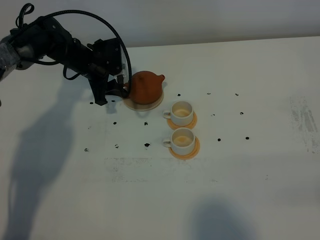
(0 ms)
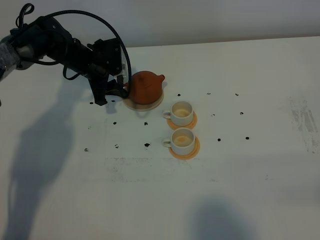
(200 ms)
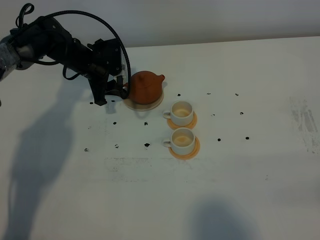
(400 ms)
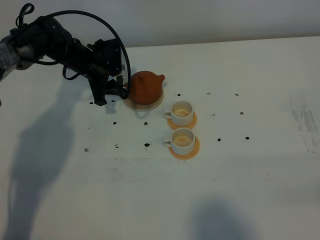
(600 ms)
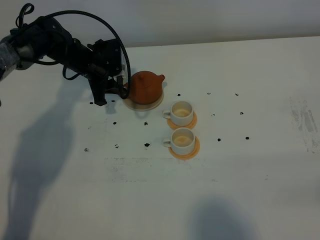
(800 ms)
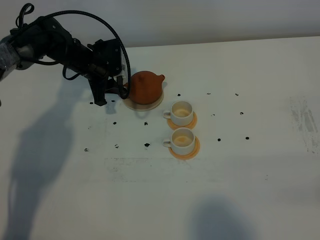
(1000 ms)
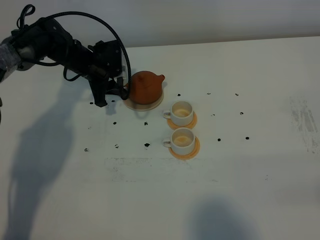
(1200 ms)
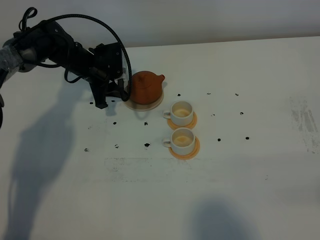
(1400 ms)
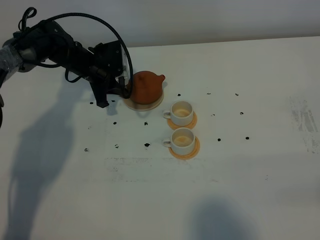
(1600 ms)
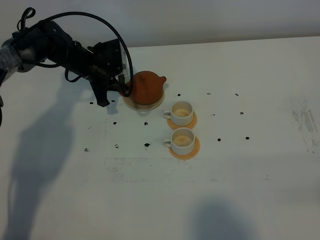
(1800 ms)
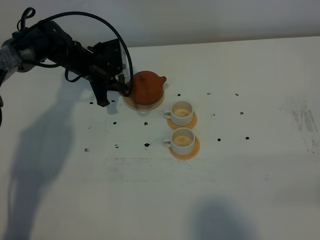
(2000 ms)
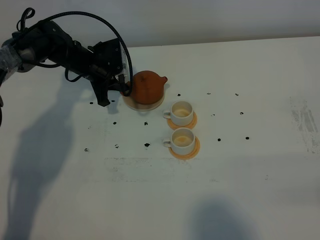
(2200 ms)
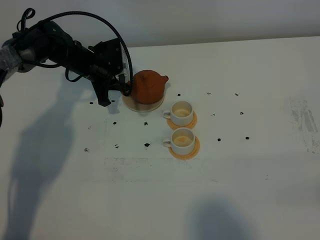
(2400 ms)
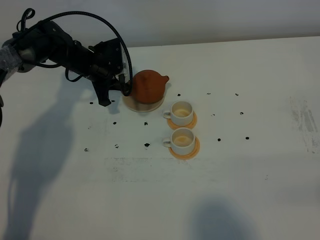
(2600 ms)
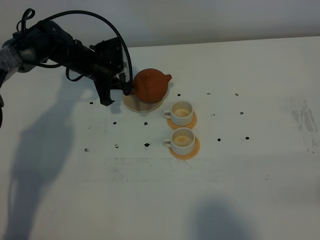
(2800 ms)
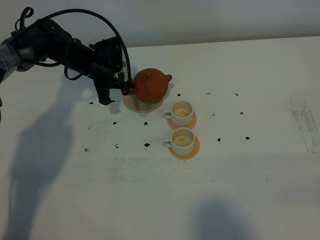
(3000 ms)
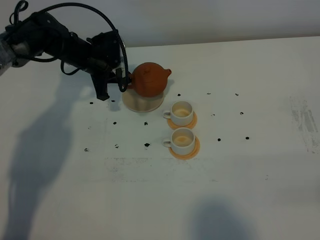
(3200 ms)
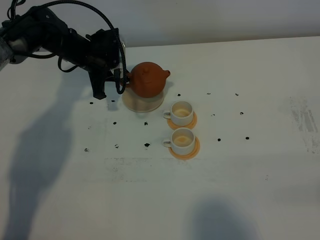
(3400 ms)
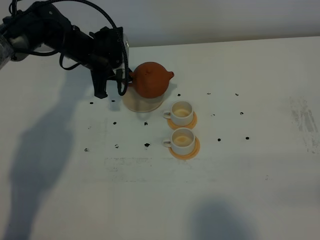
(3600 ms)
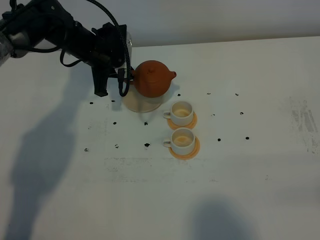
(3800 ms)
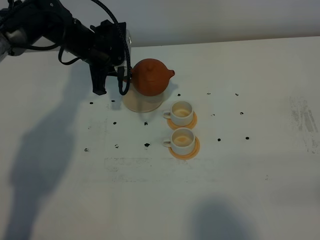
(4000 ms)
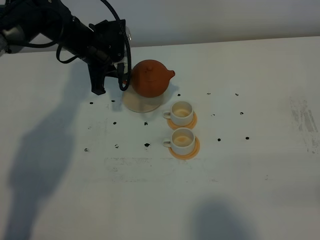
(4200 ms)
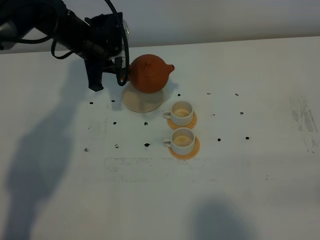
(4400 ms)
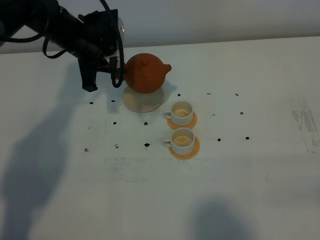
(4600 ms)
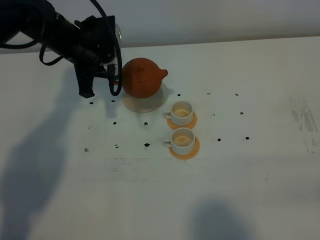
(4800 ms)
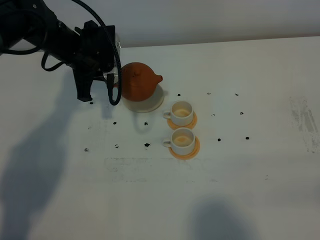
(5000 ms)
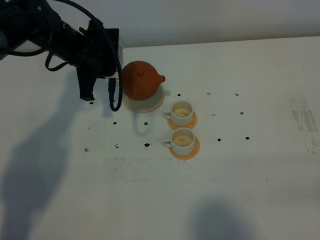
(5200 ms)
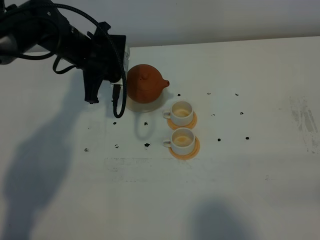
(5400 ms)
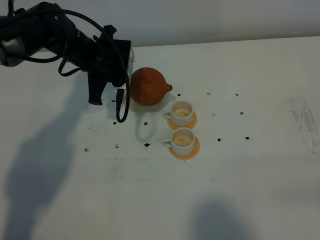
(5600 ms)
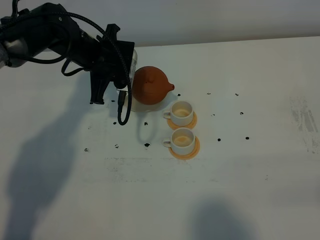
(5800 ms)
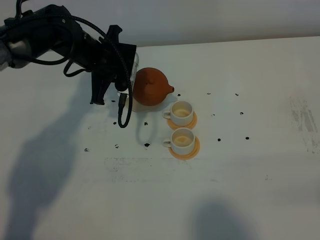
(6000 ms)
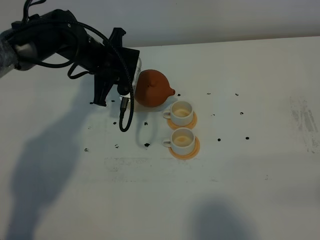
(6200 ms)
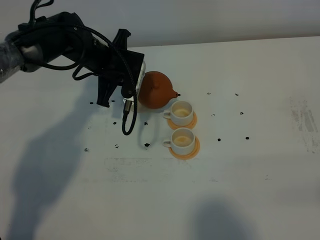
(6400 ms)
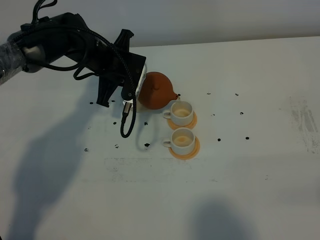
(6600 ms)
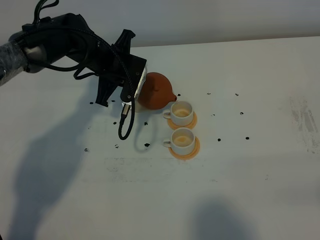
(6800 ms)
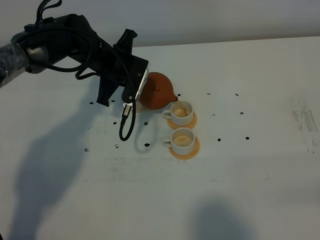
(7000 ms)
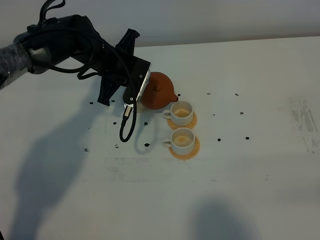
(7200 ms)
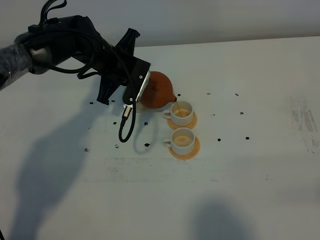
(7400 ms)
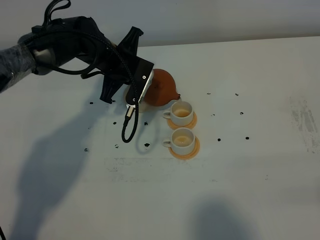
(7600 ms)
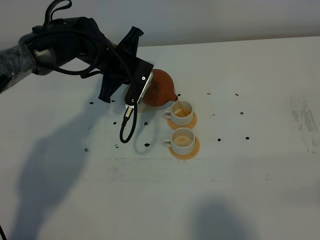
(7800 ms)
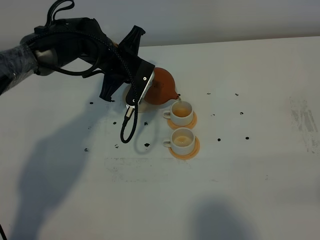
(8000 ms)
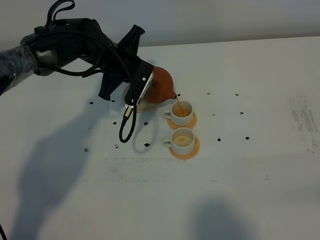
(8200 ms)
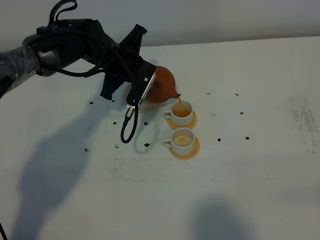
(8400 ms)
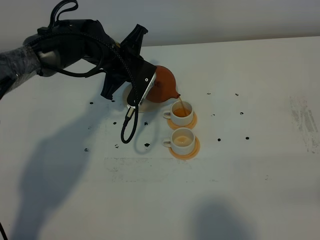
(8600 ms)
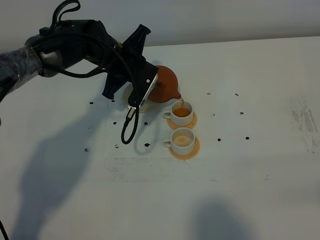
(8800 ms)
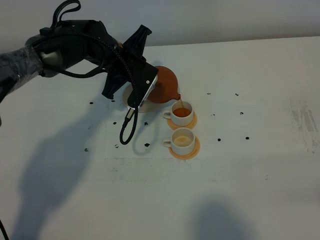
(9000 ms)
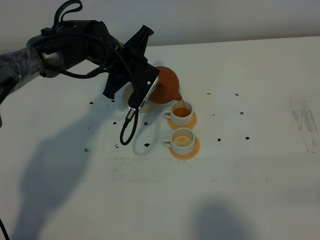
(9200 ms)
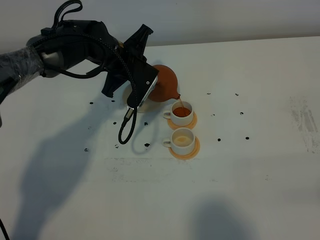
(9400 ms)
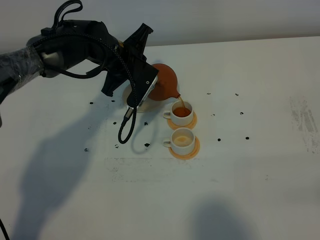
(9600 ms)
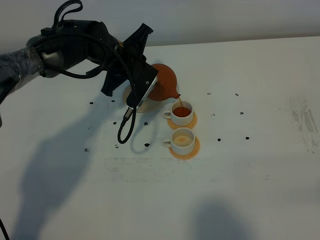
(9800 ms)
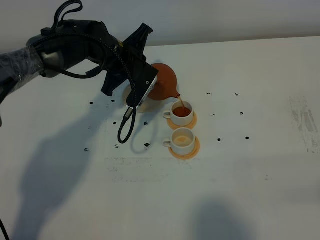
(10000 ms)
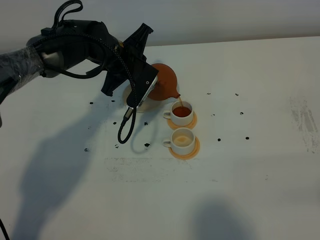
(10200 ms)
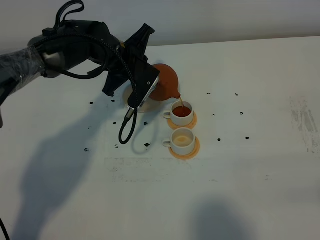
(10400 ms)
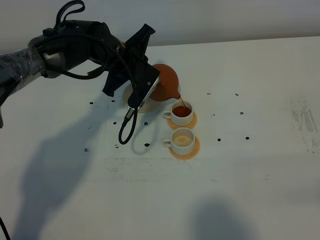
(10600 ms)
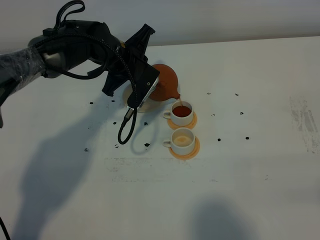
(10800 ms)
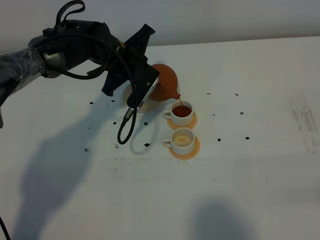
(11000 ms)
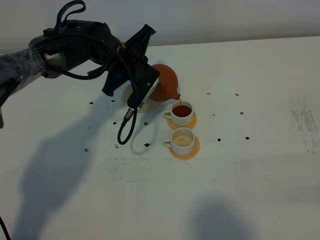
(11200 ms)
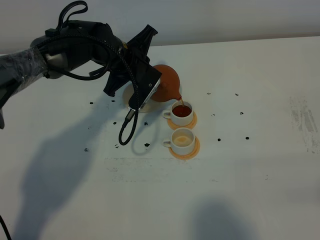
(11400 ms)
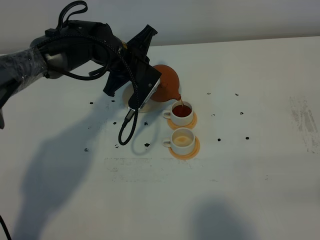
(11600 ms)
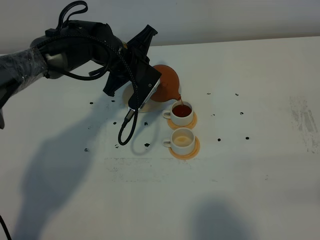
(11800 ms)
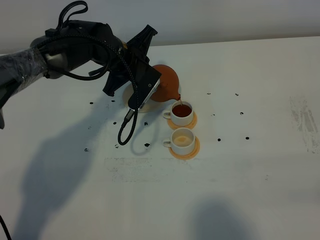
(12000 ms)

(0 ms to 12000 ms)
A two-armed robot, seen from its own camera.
Task of the whole recording: grasp the brown teapot and pour the tea into the two white teacups one by one, put the brown teapot back in its original place.
Step, 0 ms - 4400 ms: Pick up the teapot with the left gripper.
0 ms - 1600 ms: The left gripper closes its fingers.
1600 ms - 3000 ms: Both grippers stay about where they are.
3000 ms - 4400 ms: The left gripper goes about 10 cm upward.
6000 ms - 7600 ms: The grippers make only small movements.
7600 ms - 9000 ms: The grippers stay close to where they were, moving slightly.
9000 ms - 10400 ms: The two grippers keep their place.
10400 ms - 12000 ms: Neither gripper changes place.

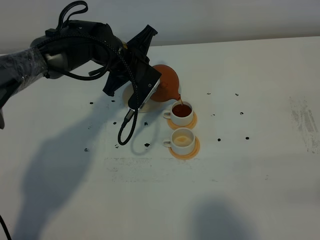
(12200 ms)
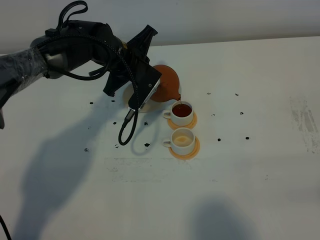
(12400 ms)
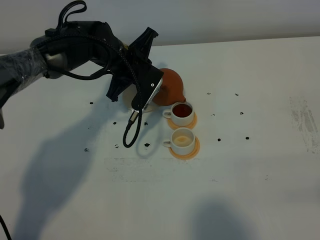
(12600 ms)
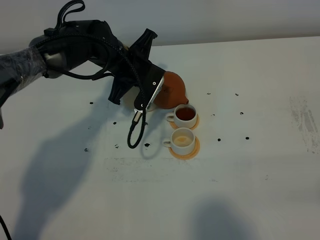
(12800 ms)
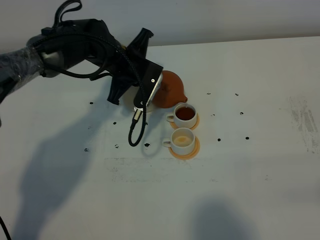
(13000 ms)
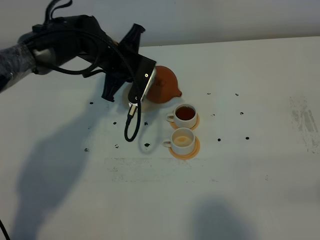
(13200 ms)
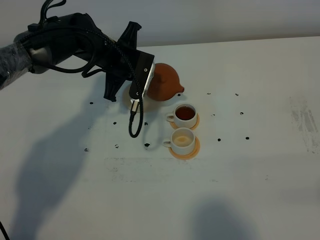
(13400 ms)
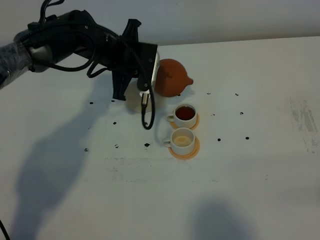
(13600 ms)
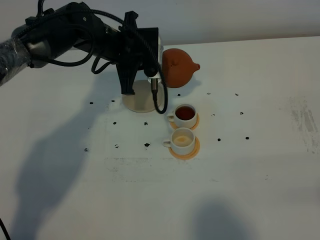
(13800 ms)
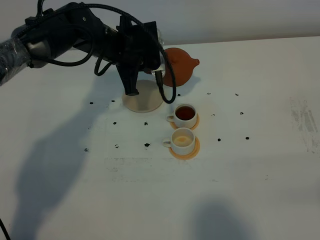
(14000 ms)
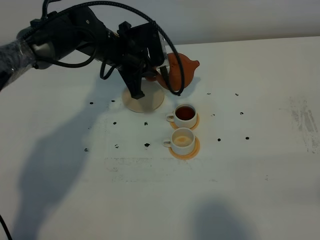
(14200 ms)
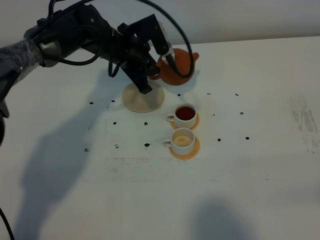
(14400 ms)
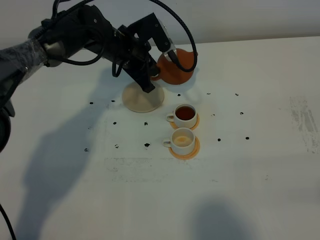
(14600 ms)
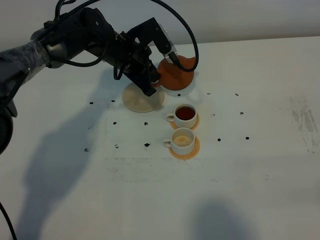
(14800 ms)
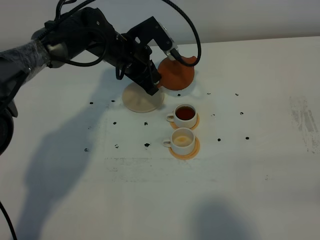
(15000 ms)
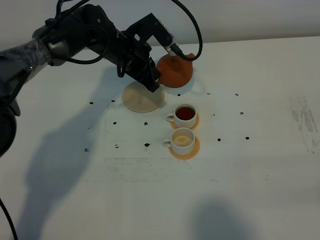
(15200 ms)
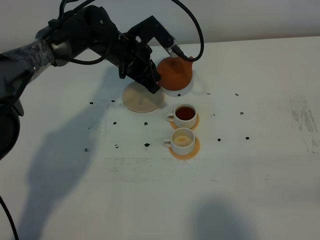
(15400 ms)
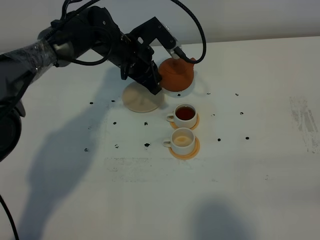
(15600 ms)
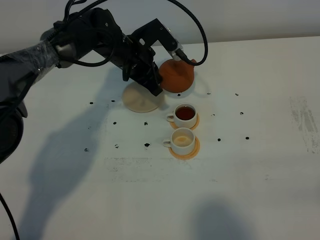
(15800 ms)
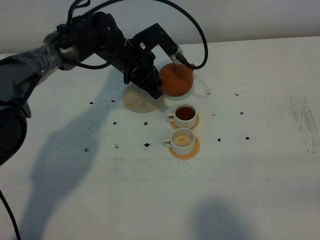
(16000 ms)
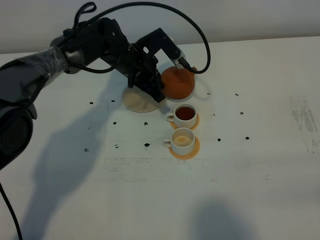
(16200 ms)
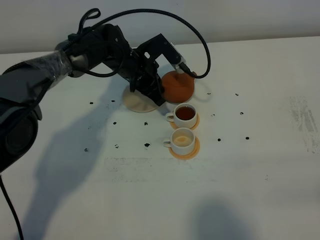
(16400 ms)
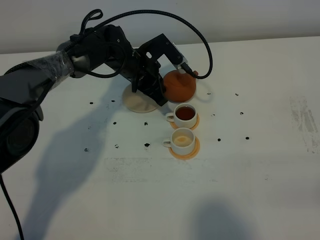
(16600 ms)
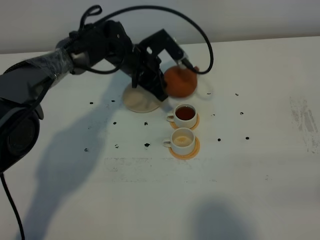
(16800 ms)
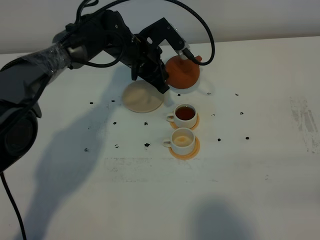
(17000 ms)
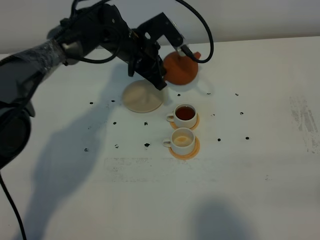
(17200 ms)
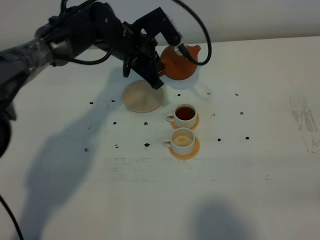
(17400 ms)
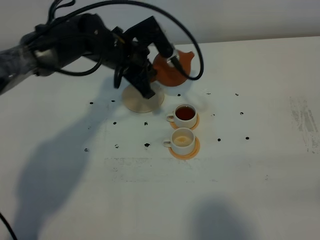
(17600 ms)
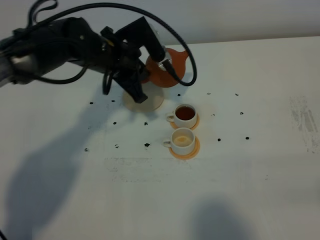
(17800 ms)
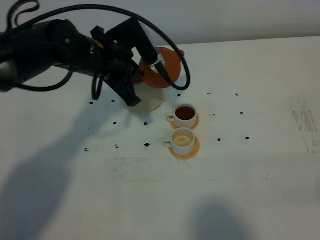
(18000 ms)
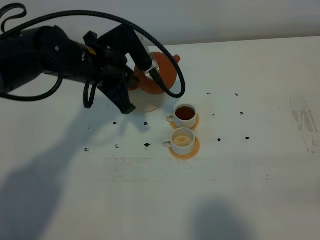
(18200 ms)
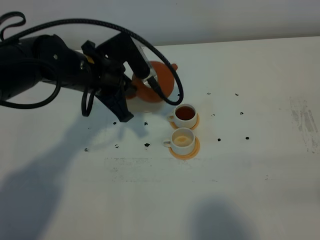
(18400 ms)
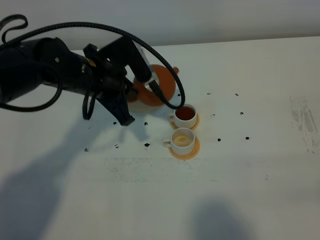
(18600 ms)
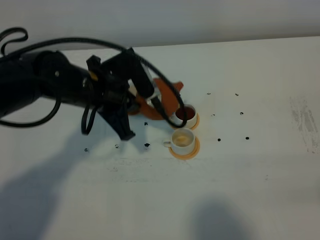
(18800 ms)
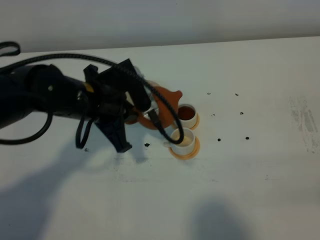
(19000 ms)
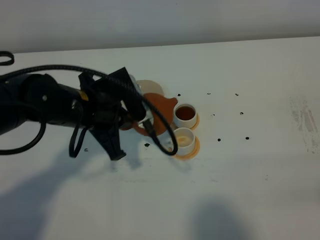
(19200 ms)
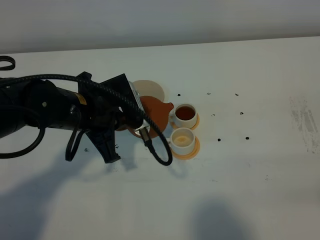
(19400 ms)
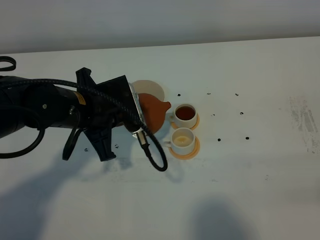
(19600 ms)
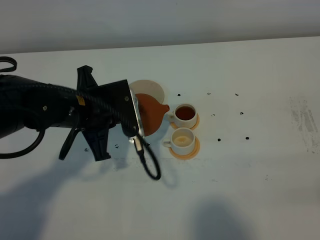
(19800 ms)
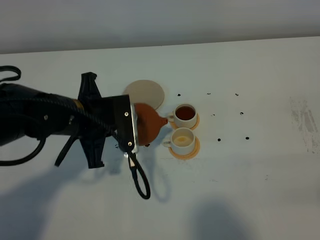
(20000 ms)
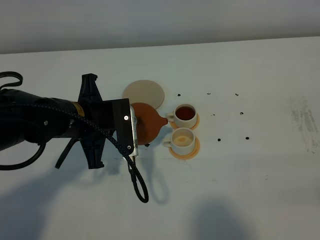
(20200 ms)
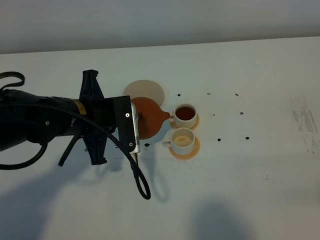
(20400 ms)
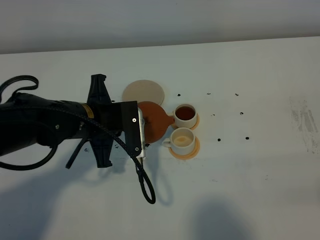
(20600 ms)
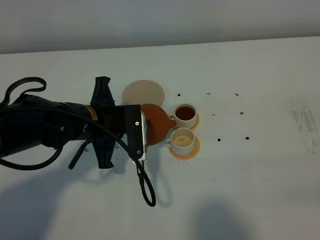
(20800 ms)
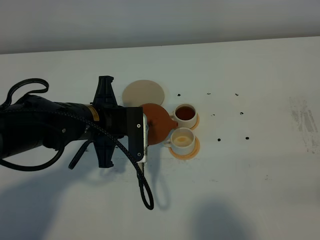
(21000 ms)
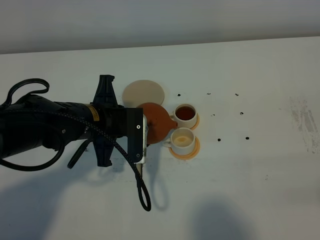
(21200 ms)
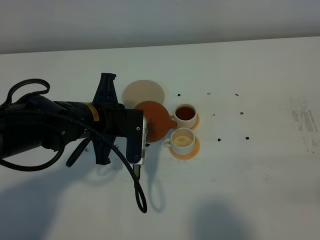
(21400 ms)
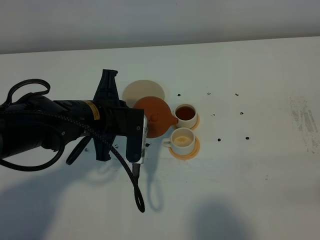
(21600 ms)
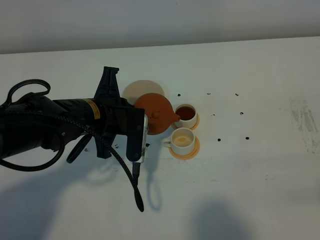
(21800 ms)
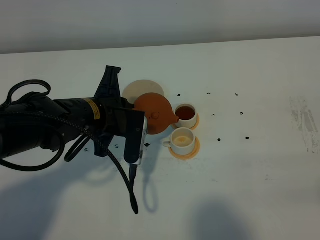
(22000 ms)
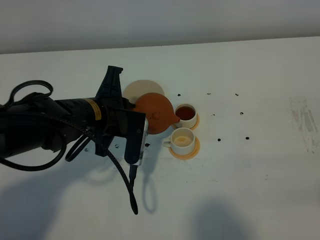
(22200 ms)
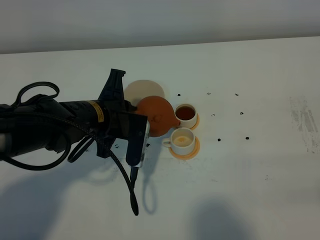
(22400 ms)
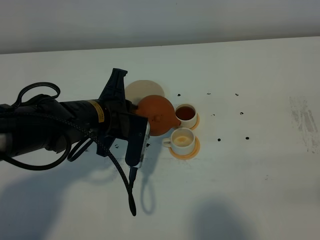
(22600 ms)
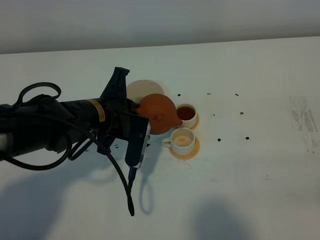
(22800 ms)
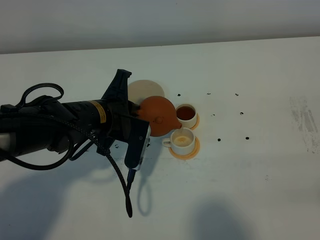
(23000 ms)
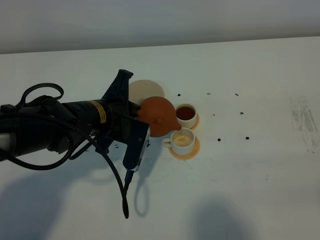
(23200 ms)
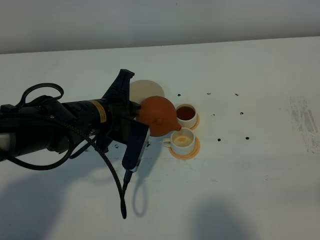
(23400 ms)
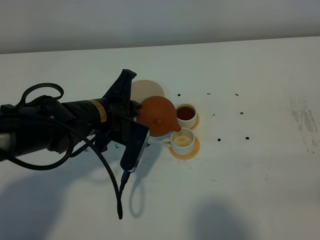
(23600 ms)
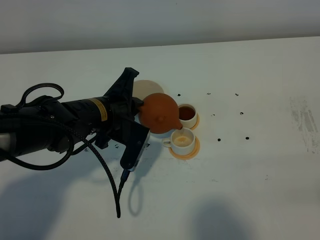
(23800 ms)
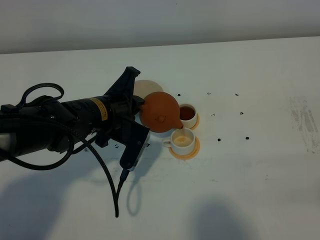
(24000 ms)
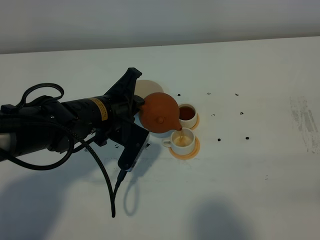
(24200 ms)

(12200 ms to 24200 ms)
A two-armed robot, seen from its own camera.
Task of the whole recording: grasp the brown teapot and pour the tea into the two white teacups one by one, put the brown teapot back in its original place.
15200 ms - 16600 ms: The grippers make only small movements.
16600 ms - 18200 ms: The left gripper moves backward, upward and to the left, about 15 cm.
18200 ms - 19800 ms: The left gripper is displaced backward by some 5 cm.
19800 ms - 21200 ms: The grippers make only small movements.
21200 ms - 22600 ms: The grippers make only small movements.
22600 ms - 24200 ms: There are only small adjustments of the grippers.
